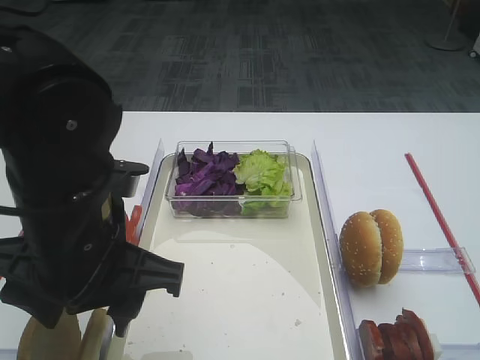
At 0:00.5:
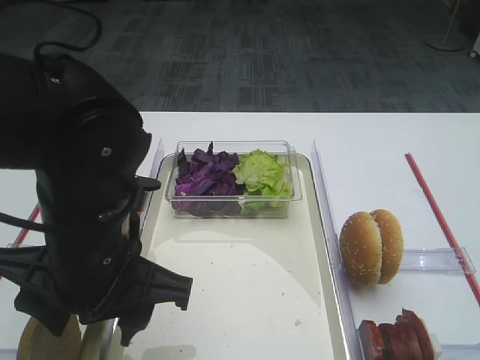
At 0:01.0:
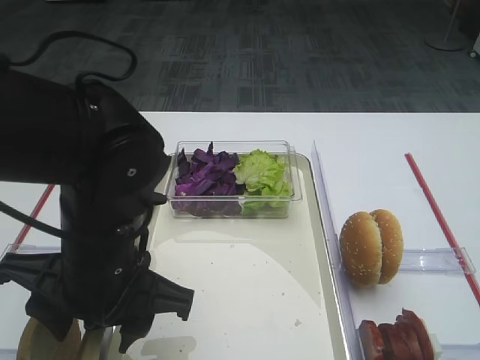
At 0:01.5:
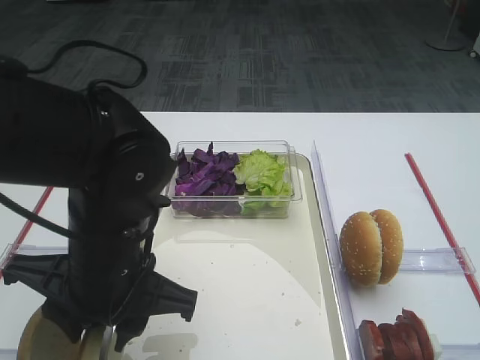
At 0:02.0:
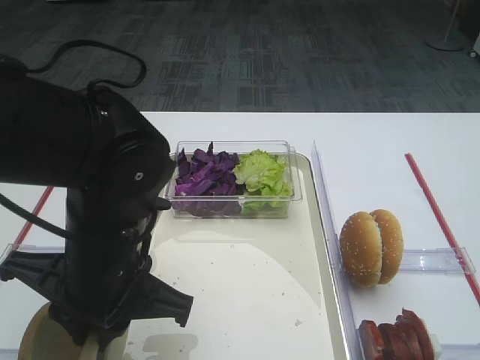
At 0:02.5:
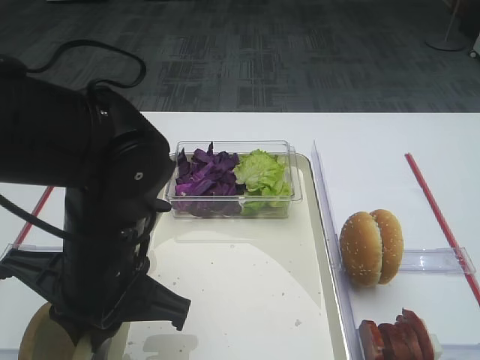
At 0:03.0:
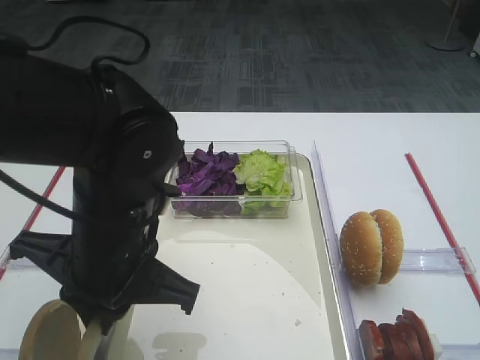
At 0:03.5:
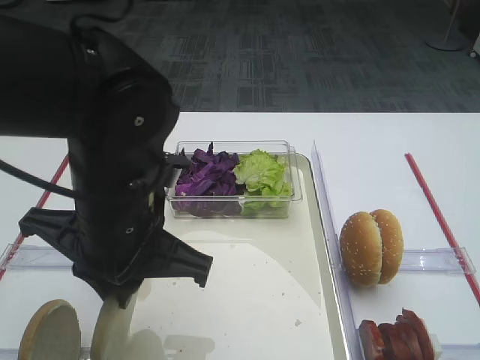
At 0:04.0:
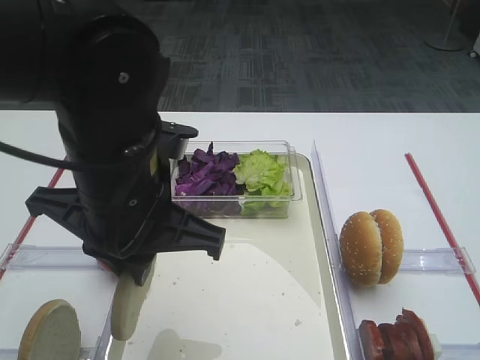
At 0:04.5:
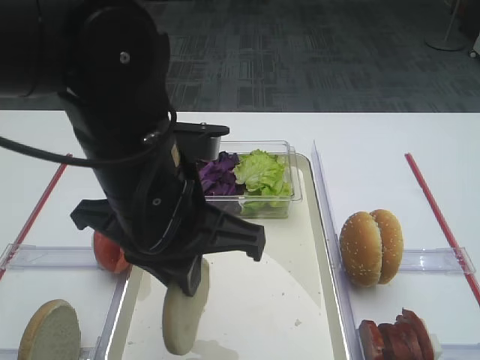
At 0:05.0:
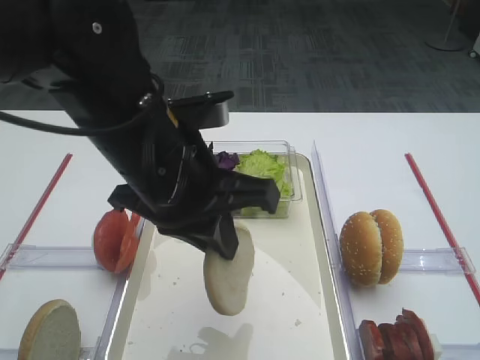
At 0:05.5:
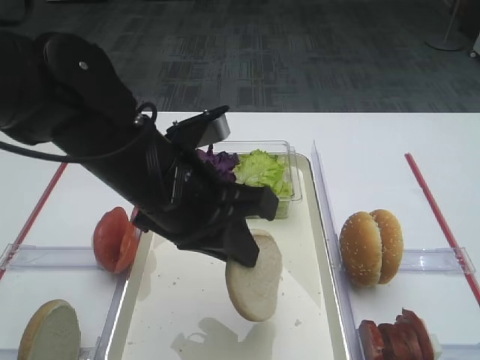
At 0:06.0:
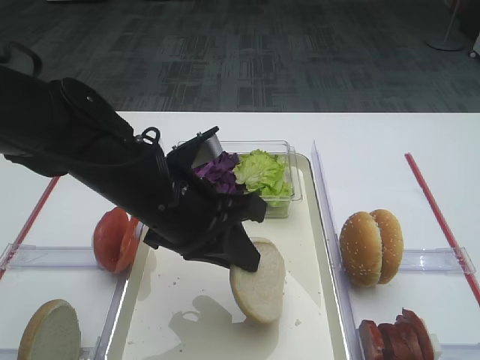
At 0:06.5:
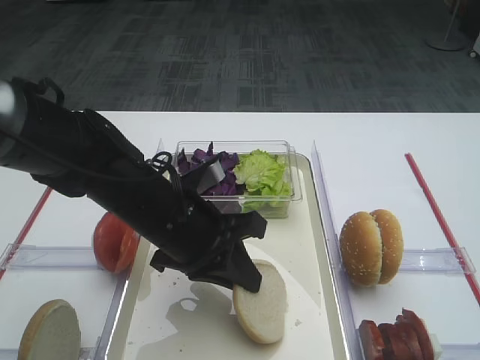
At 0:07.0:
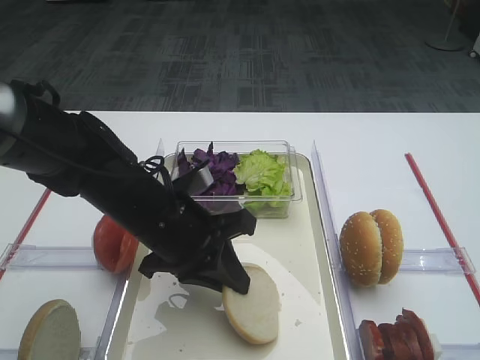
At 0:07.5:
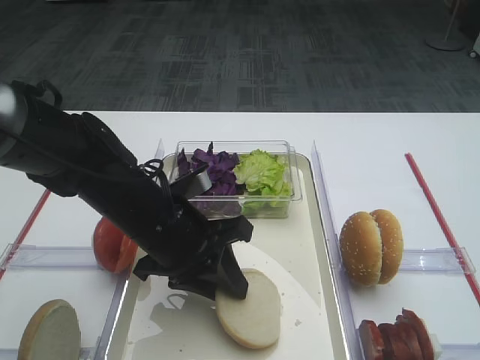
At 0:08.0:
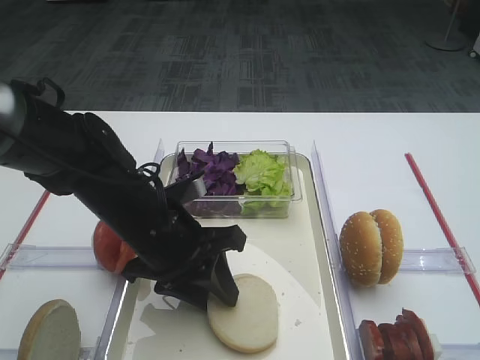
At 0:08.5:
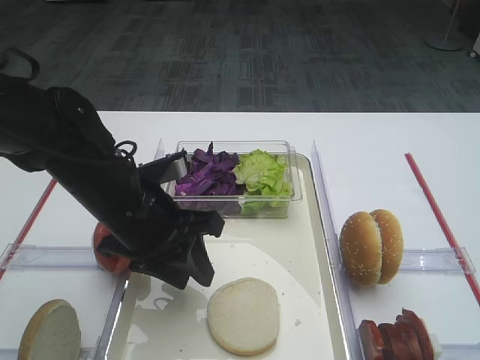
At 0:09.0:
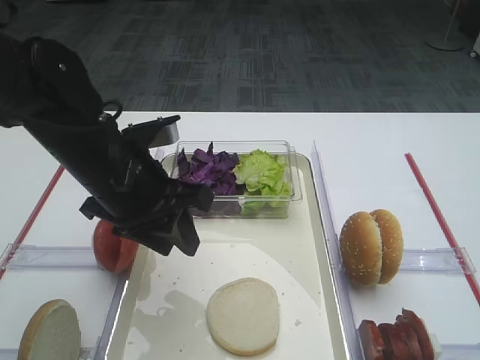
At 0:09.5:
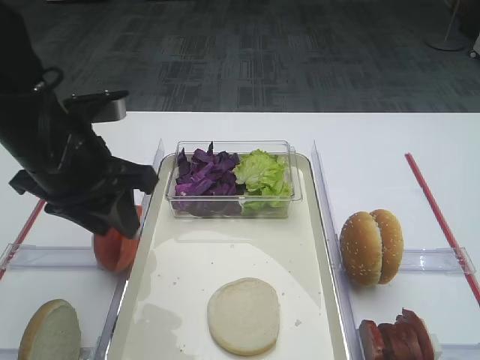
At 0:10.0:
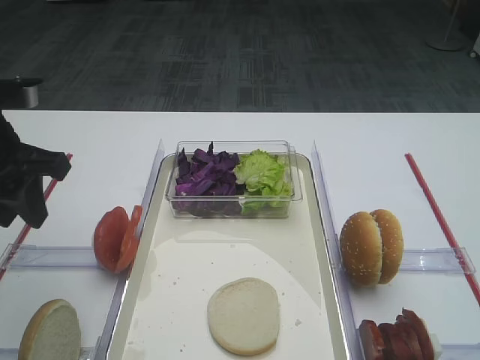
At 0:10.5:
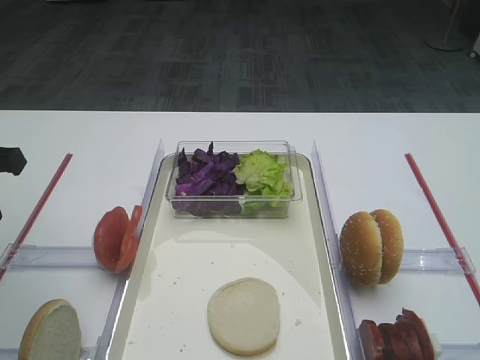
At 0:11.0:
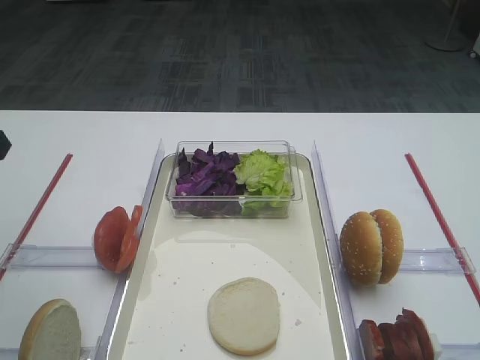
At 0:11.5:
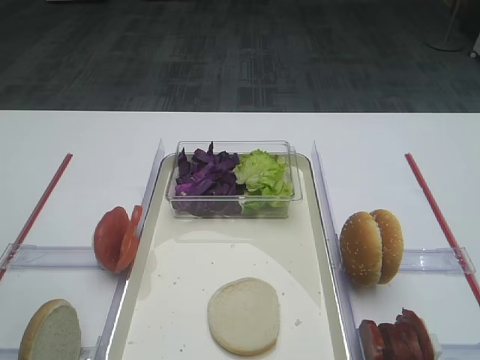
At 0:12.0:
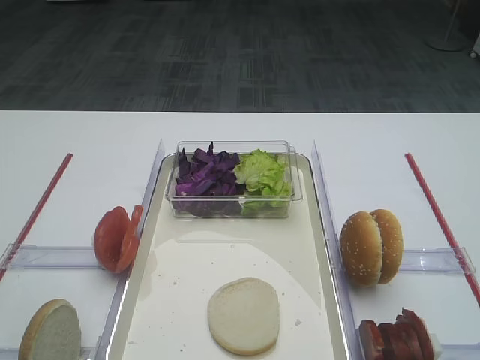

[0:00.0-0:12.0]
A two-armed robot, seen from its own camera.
Step, 0:00.0 to 0:03.5: Pick up the bread slice with the left gripper.
Step, 0:04.0 to 0:08.5: Place the bread slice on the tray with the left gripper.
0:00.0 to 0:02.0: The left gripper closes.
0:02.0 to 0:04.0: The left gripper shifts about 5 cm upward.
0:04.0 to 0:06.0: The left gripper is displaced downward by about 5 cm.
0:06.0 to 0:08.0: The left gripper ends up roughly 5 cm from where it was, and opens its fingers.
0:08.0 to 0:10.0: The left gripper travels to the left and upward by some 20 cm.
0:10.0 to 0:12.0: The left gripper shifts about 15 cm backward.

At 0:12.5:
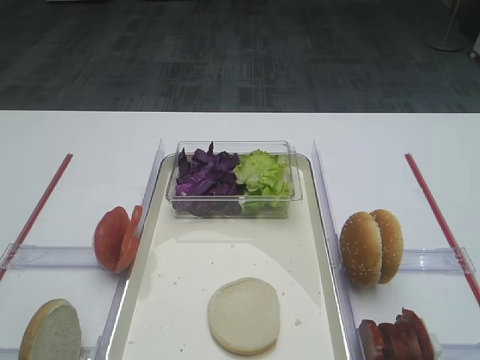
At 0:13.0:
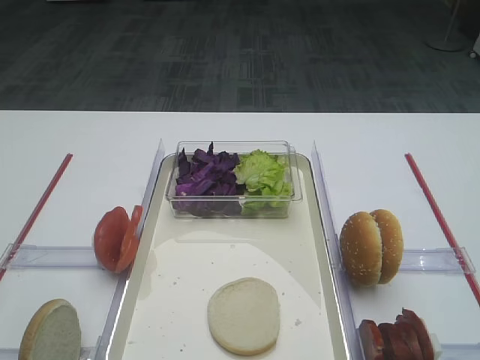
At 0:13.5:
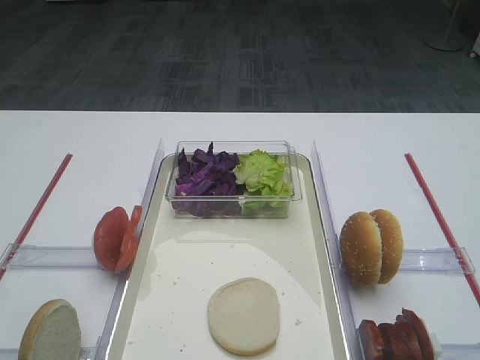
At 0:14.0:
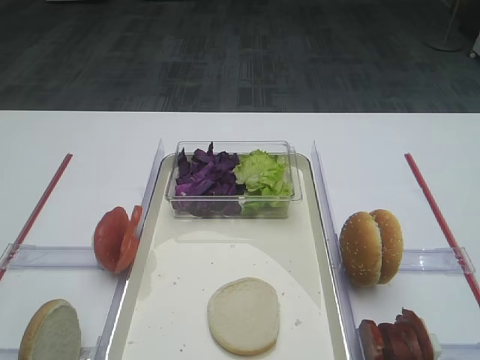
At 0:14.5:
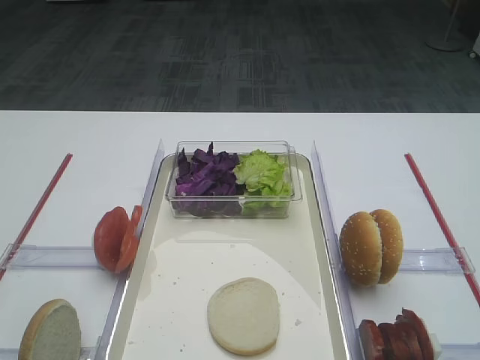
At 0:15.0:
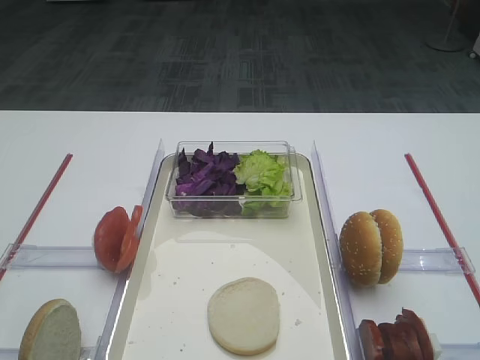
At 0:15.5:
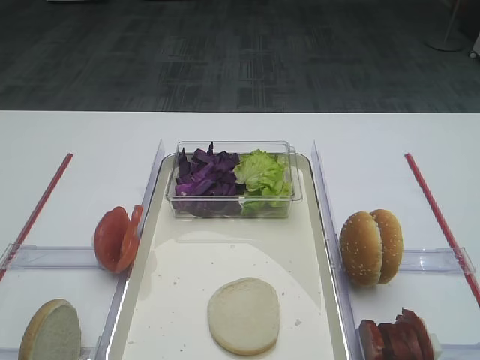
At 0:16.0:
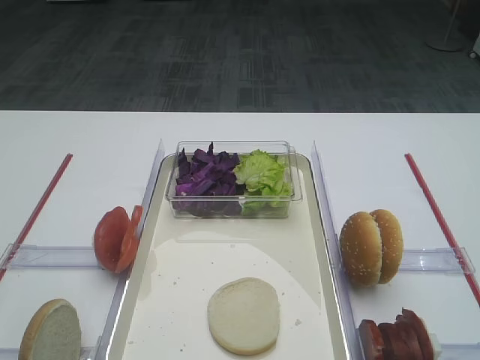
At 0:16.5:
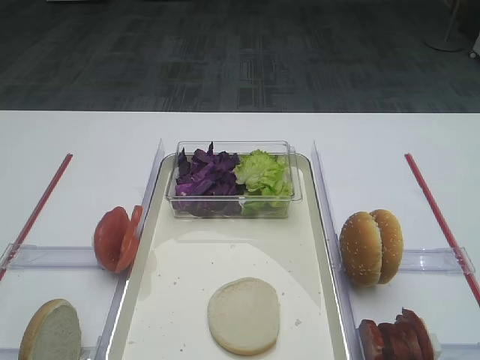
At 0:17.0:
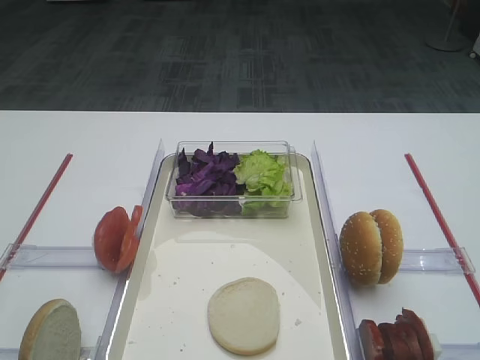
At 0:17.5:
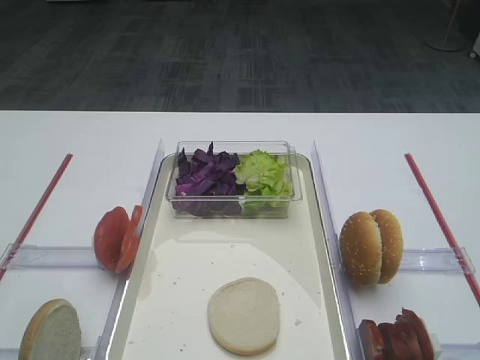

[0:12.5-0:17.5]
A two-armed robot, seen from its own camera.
0:15.0 to 0:17.5: Neither gripper changes place.
